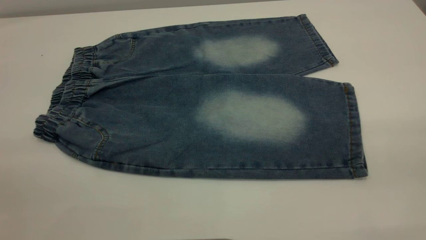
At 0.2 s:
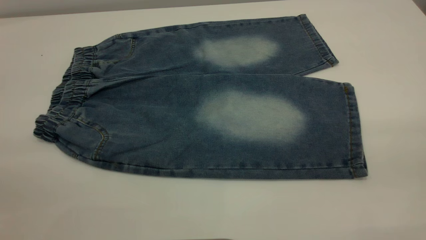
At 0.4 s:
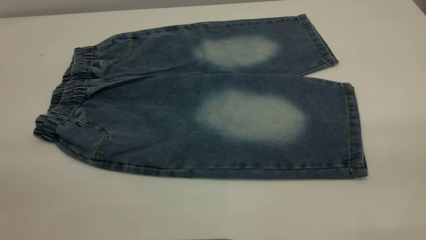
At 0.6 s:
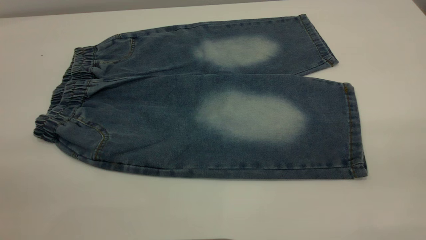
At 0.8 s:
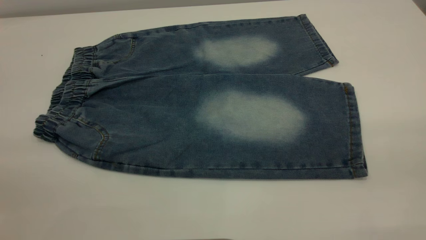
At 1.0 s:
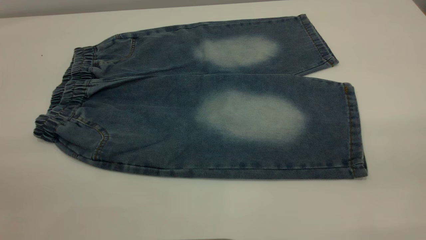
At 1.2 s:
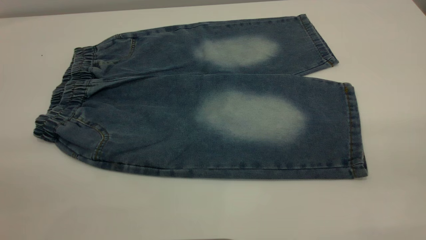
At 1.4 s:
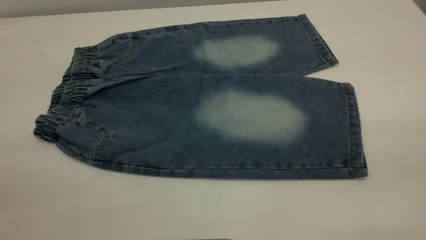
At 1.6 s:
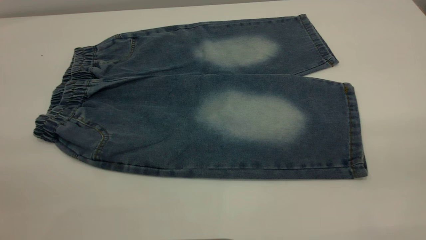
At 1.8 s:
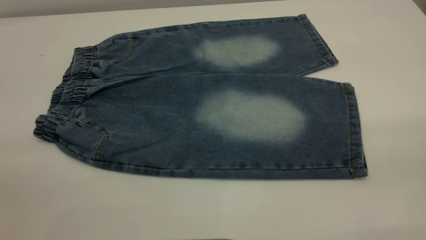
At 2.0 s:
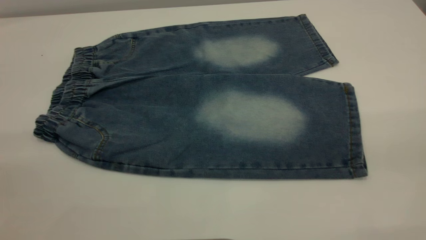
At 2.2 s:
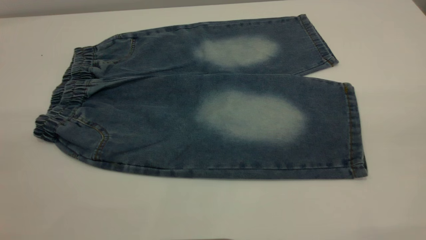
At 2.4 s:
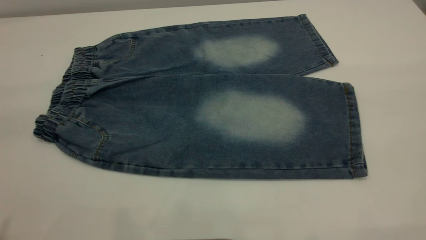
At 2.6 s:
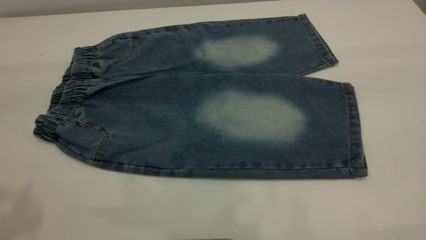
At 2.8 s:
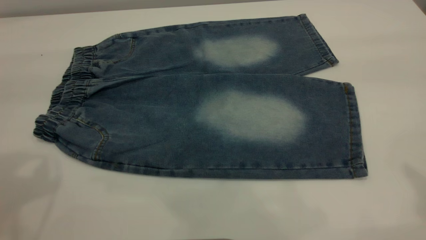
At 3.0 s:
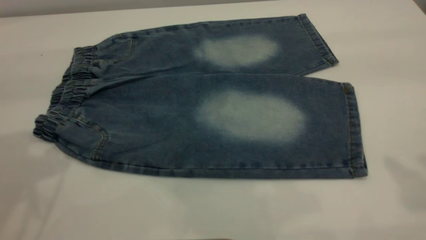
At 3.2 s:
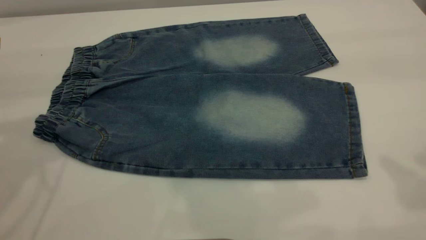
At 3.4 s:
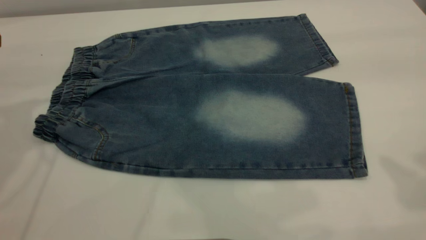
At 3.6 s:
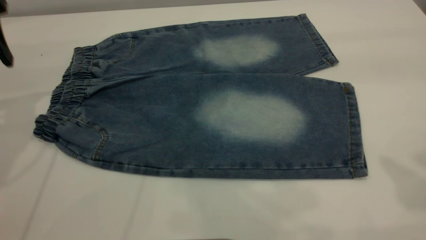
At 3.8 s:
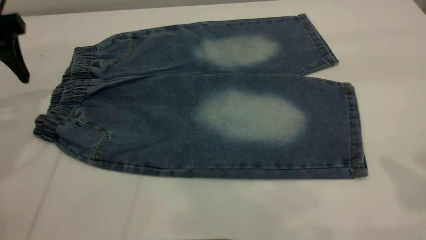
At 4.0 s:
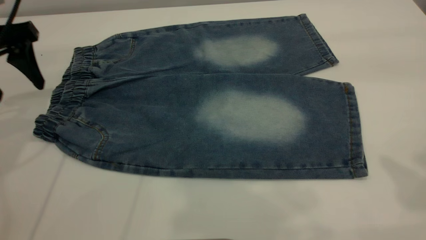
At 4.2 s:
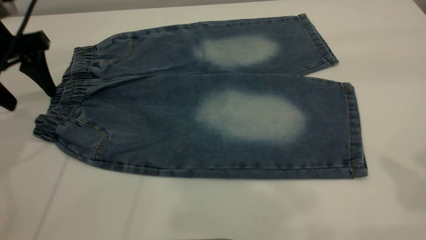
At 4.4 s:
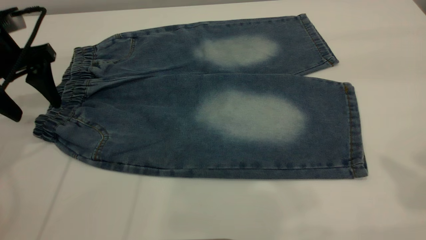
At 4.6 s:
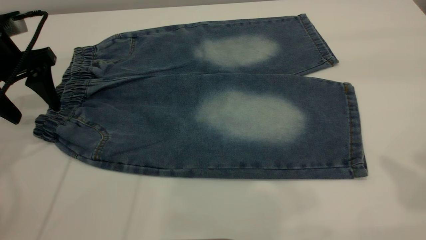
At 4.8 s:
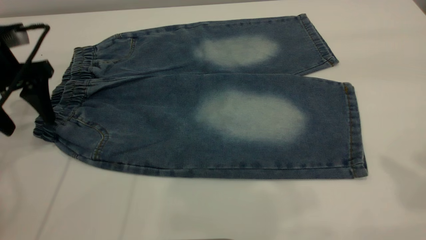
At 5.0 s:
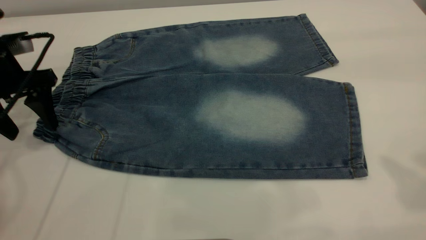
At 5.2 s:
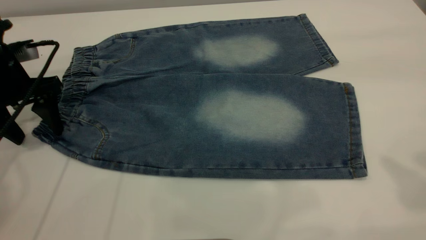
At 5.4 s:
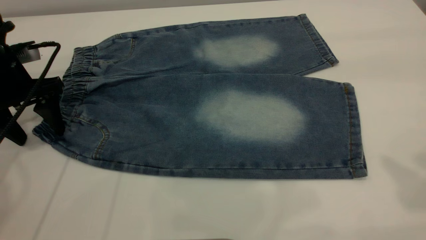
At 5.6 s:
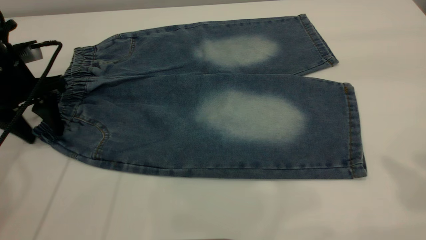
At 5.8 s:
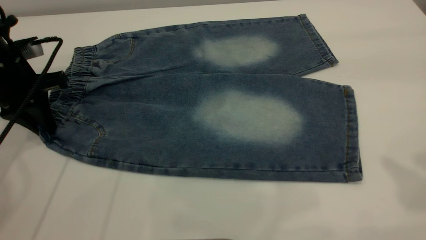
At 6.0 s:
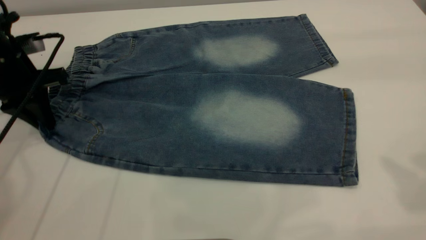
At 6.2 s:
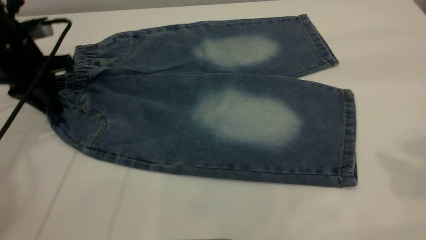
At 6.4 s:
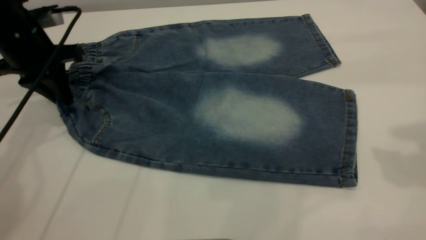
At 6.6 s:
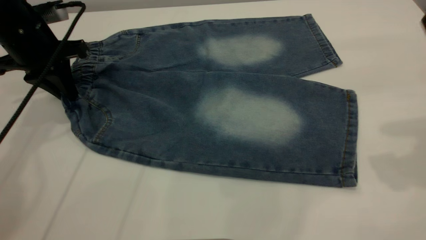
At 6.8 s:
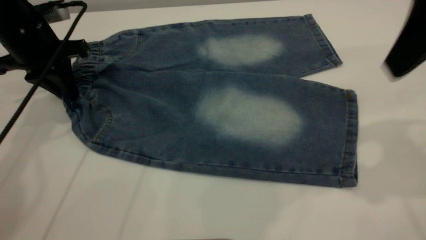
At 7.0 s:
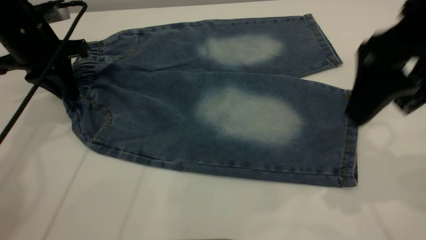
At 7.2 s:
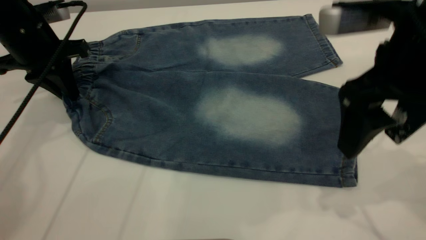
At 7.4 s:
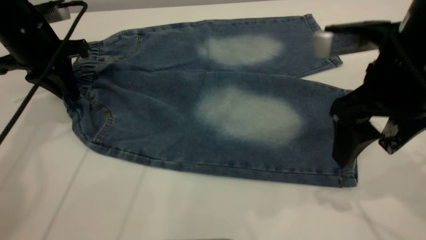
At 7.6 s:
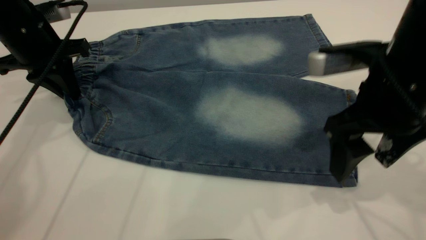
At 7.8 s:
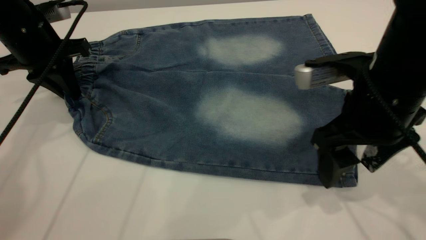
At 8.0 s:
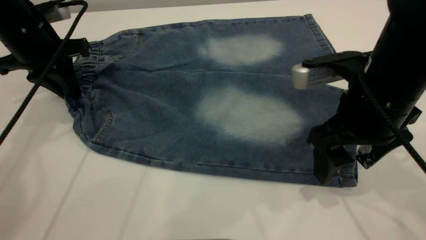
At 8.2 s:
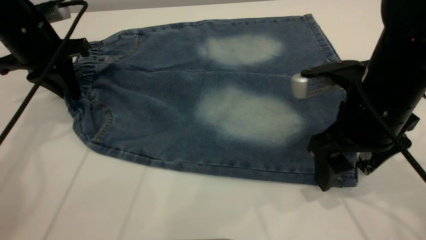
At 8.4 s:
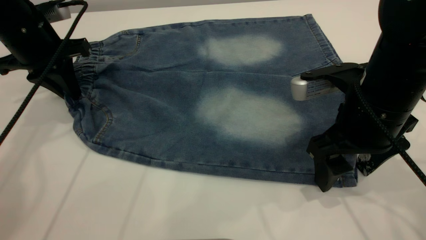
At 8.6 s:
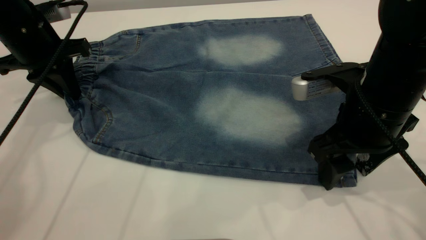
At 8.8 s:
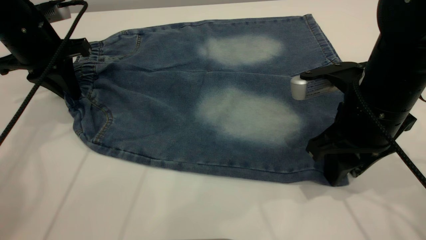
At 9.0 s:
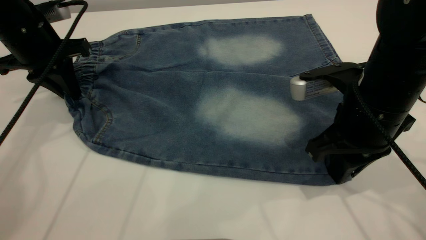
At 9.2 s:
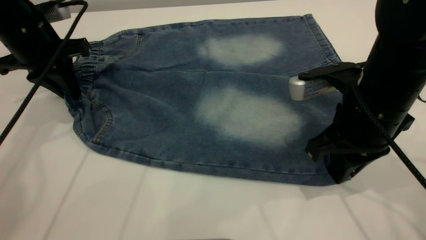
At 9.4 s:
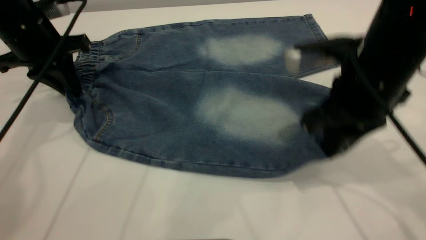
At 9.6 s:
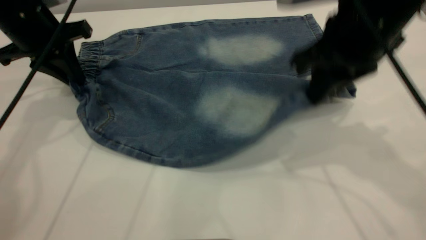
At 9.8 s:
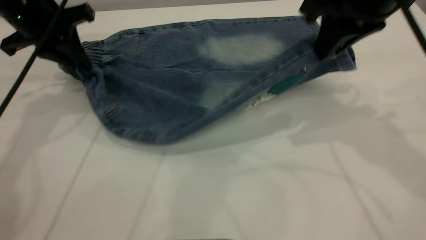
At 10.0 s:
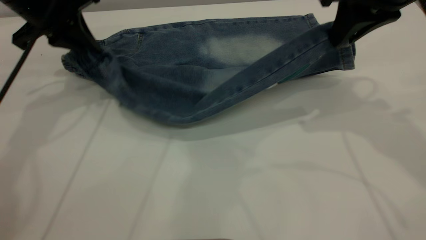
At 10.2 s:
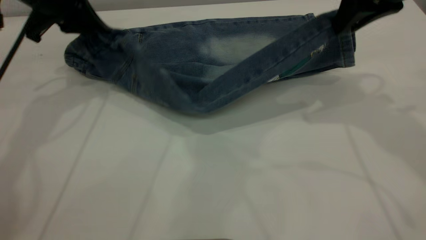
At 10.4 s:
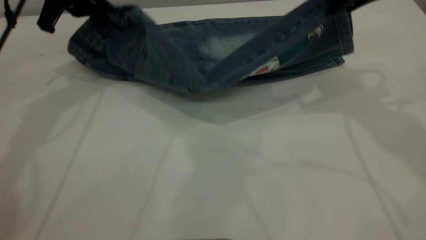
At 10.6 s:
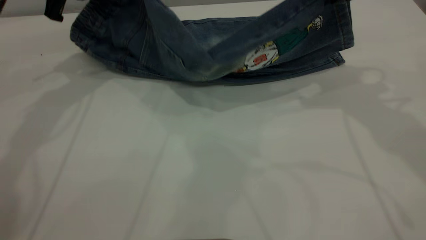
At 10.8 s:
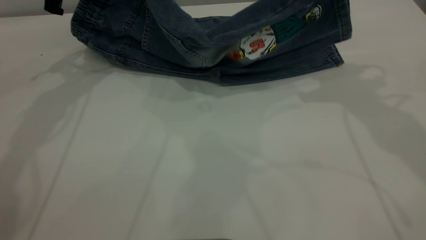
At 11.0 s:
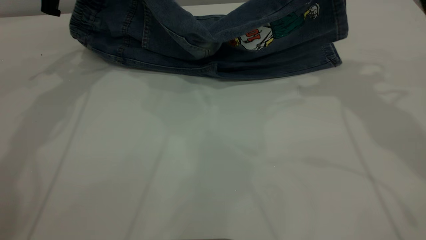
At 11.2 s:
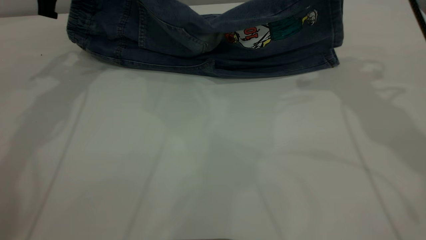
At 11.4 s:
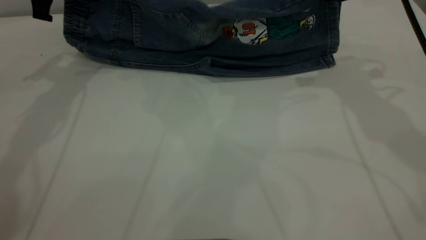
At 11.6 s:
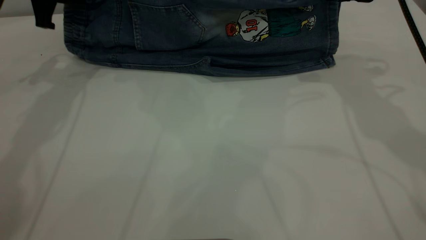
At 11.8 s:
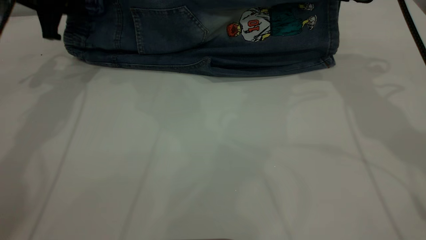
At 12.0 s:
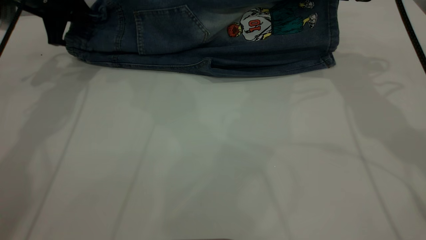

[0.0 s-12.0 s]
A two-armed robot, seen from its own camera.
0.0 to 1.6 s: Both grippers stay put.
3.0 to 4.4 s: The left gripper goes about 20 cm downward and forward.
4.4 to 6.0 s: The left gripper closes.
6.0 to 7.6 s: The right gripper shifts about 25 cm downward and to the left.
7.6 to 9.0 s: The right gripper closes.
9.0 to 10.4 s: The right gripper heads upward and forward, covering roughly 15 cm. Meanwhile the left gripper heads upward, covering about 5 cm.
10.4 to 12.0 s: The right gripper moves downward and forward, roughly 10 cm, while the left gripper moves roughly 5 cm.

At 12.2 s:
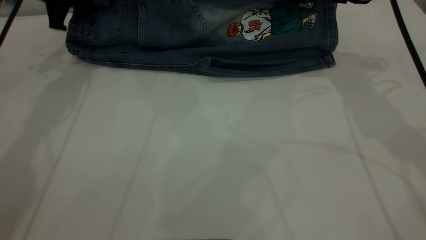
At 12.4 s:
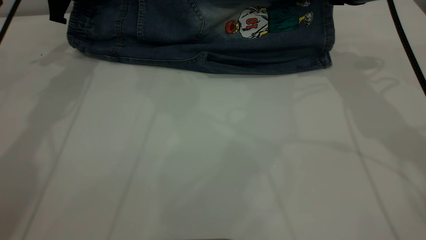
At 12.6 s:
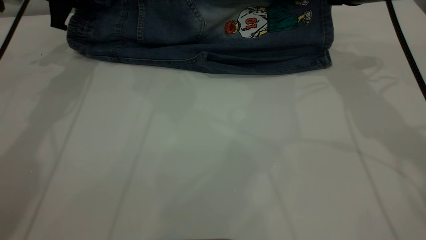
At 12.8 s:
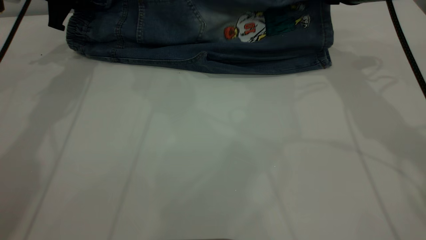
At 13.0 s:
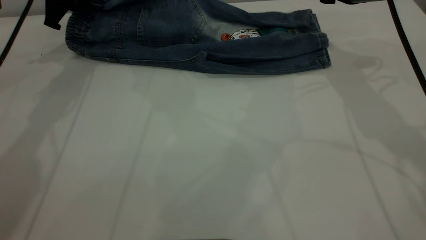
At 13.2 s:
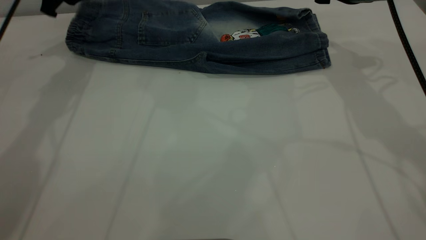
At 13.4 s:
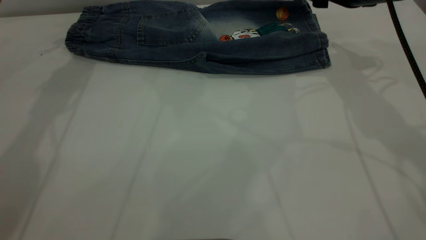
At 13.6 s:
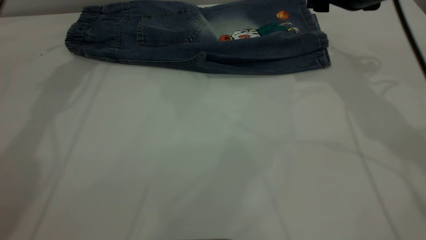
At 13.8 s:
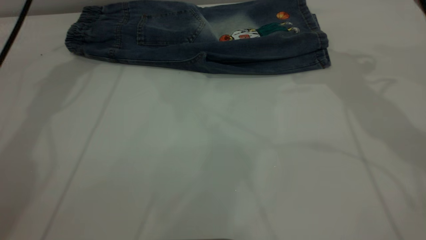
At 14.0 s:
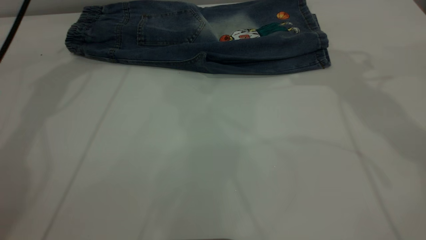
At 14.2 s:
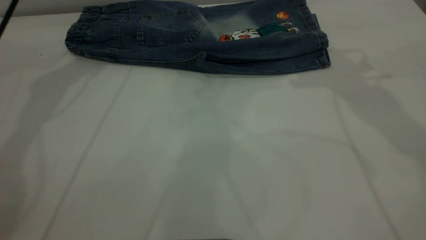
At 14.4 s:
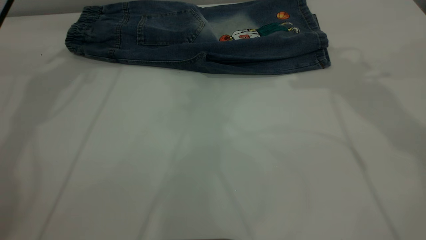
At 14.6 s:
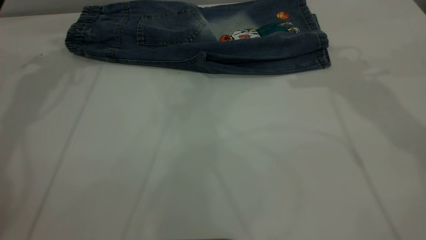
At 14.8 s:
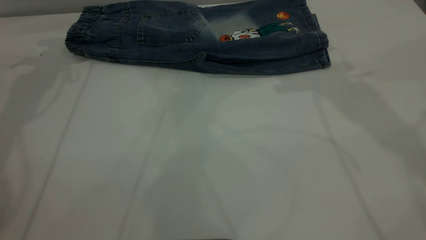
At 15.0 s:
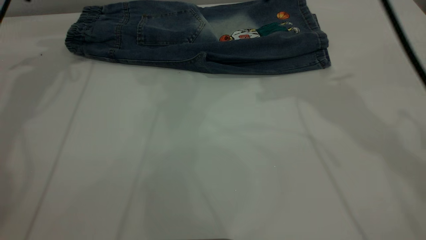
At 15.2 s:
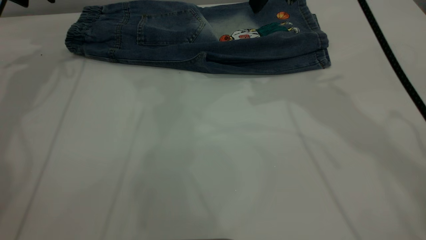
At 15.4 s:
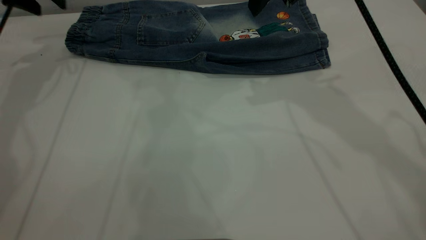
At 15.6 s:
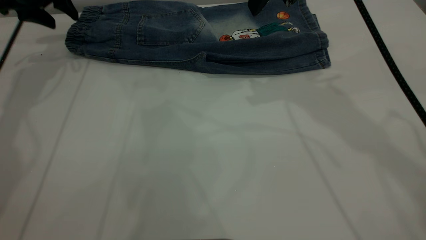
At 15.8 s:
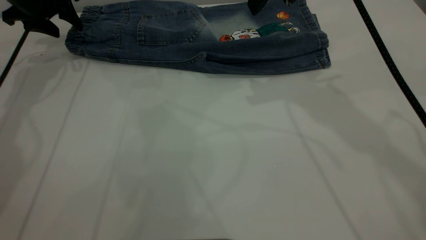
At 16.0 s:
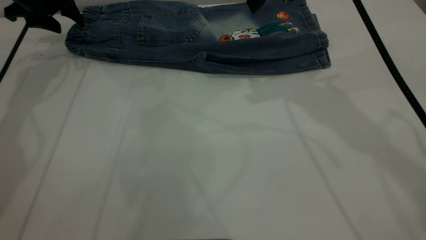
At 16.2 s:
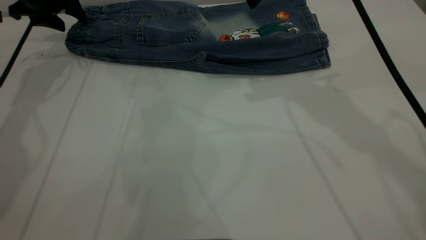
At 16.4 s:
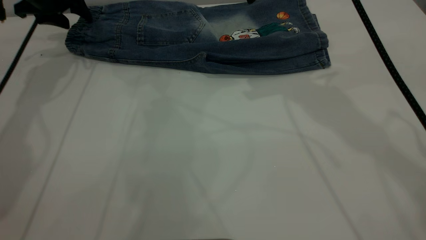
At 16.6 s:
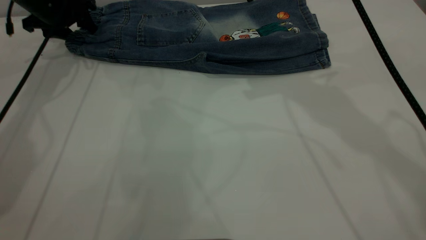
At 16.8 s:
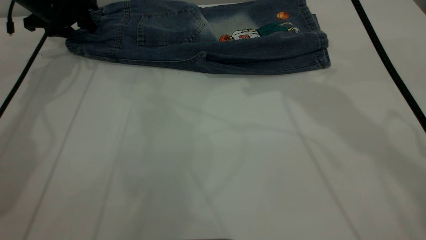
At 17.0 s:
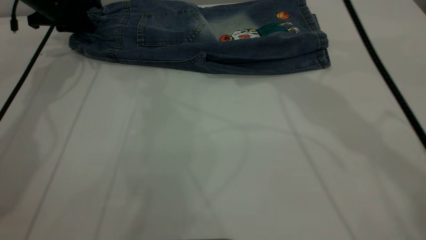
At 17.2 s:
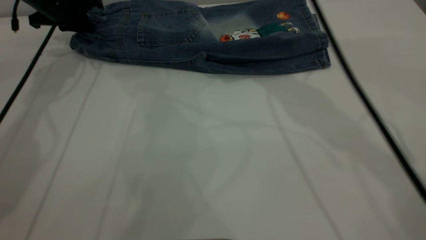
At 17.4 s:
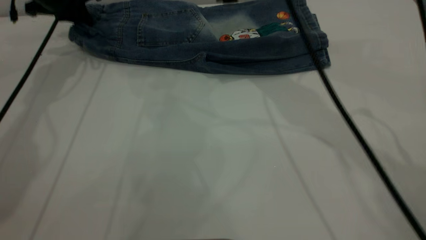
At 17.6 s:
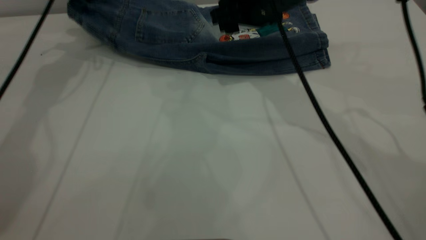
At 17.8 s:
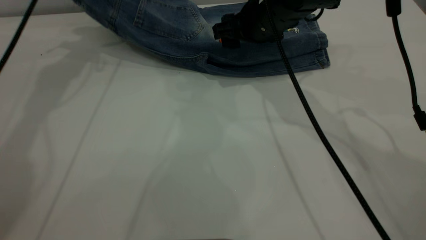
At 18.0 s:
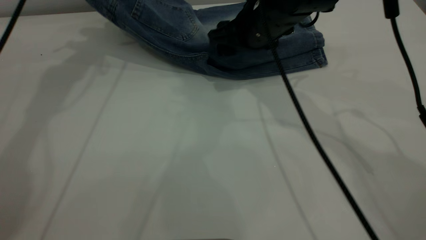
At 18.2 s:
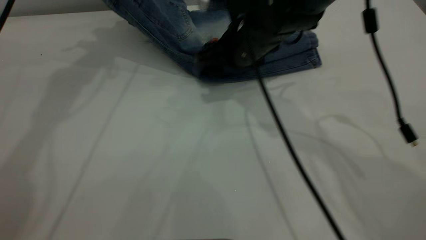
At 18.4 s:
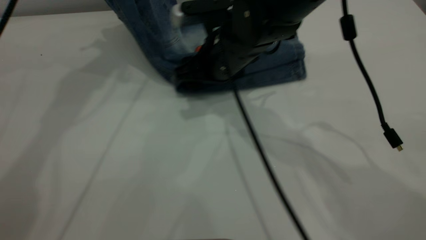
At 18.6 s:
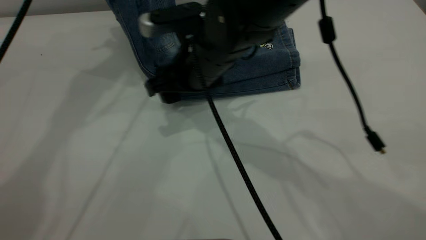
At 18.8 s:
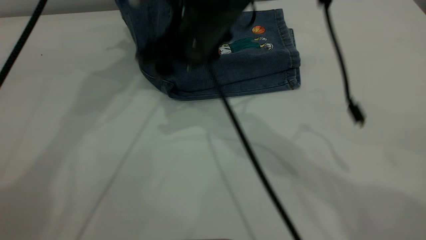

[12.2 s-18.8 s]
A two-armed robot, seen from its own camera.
12.2 to 13.8 s: The right gripper shifts by roughly 5 cm, and opens up; the left gripper is displaced upward by approximately 5 cm, and opens its fingers.
13.8 to 15.4 s: The grippers both shift to the left by some 10 cm.
15.4 to 17.2 s: The right gripper changes place by roughly 5 cm. The left gripper goes about 5 cm downward, and closes.
17.2 to 18.8 s: The right gripper goes some 10 cm to the left and backward, and travels downward and back again, approximately 10 cm each way. Meanwhile the left gripper travels upward and to the right by approximately 25 cm.
